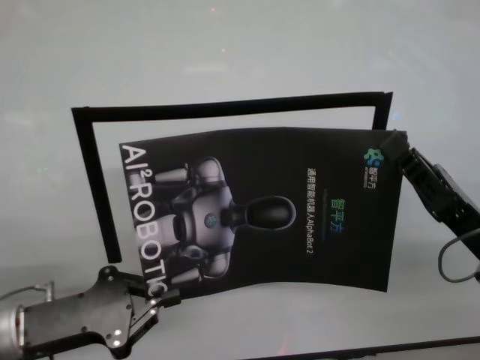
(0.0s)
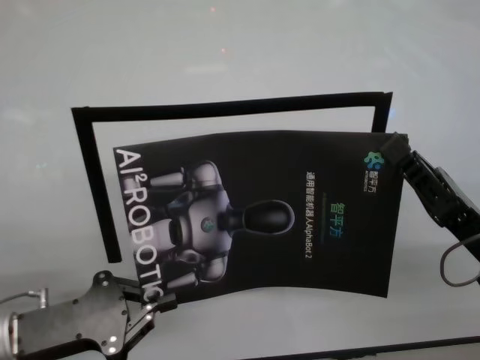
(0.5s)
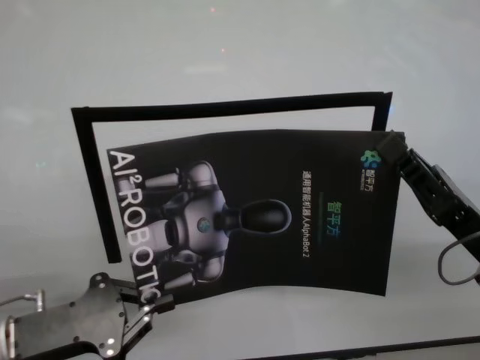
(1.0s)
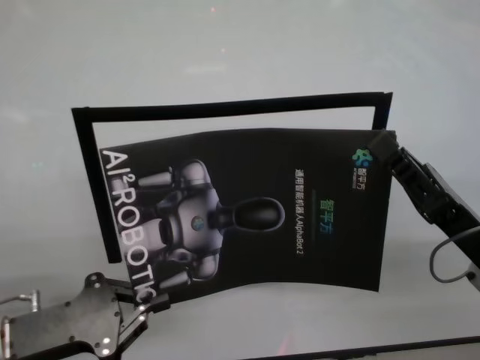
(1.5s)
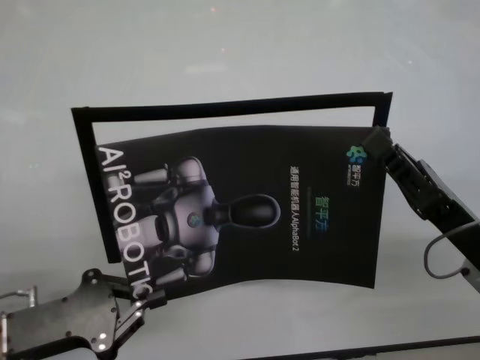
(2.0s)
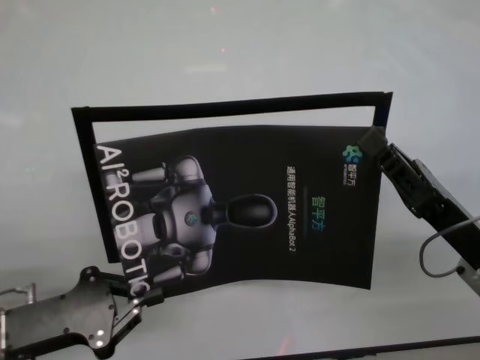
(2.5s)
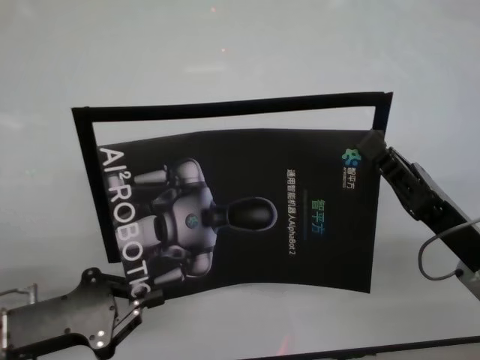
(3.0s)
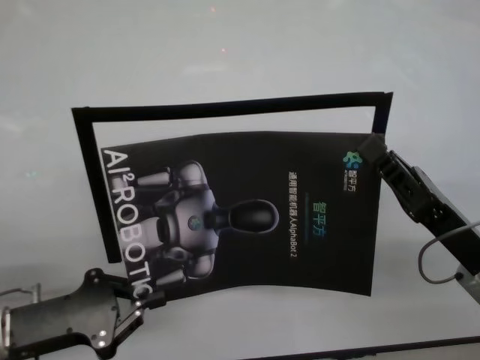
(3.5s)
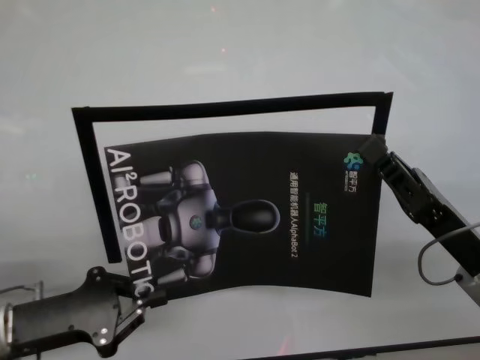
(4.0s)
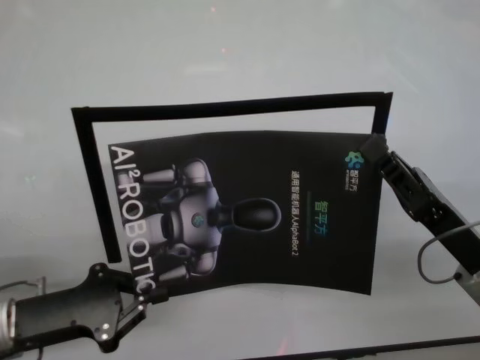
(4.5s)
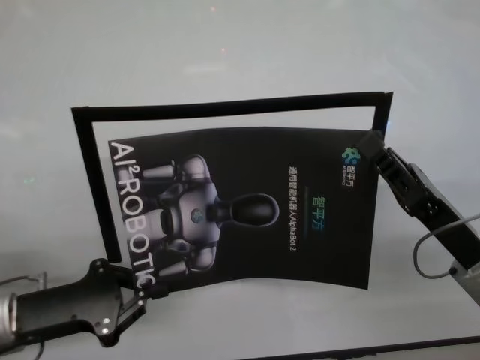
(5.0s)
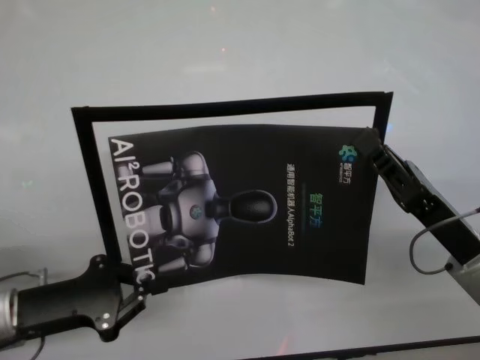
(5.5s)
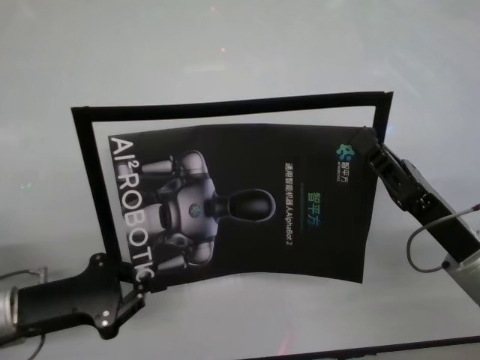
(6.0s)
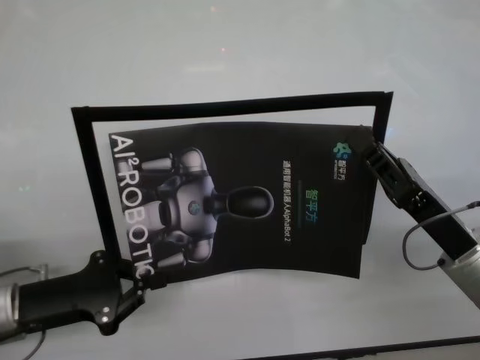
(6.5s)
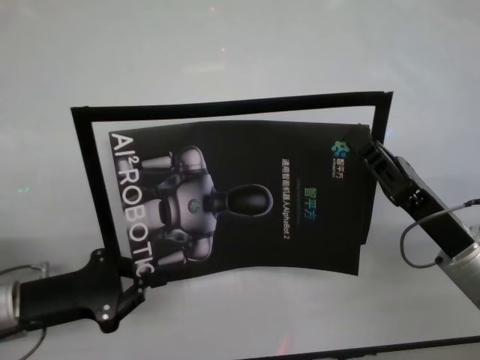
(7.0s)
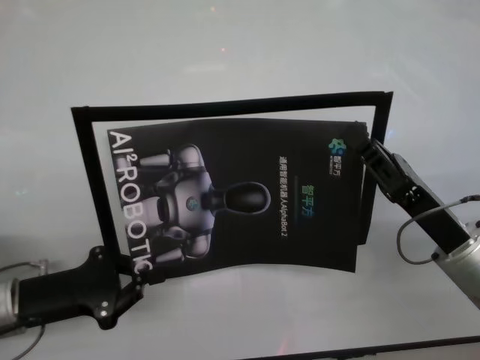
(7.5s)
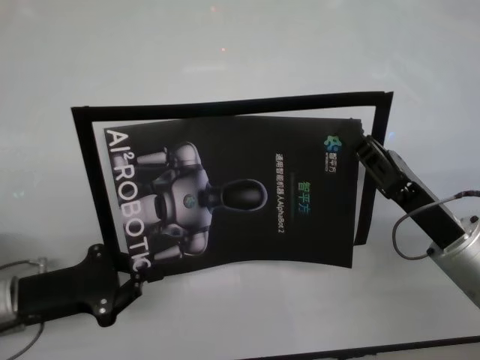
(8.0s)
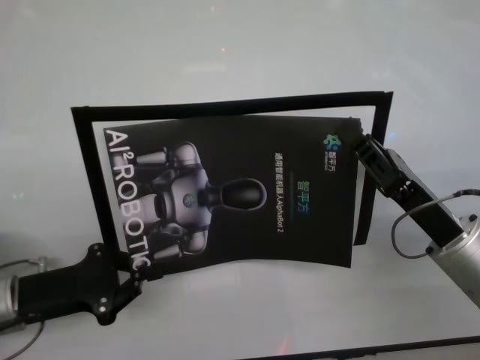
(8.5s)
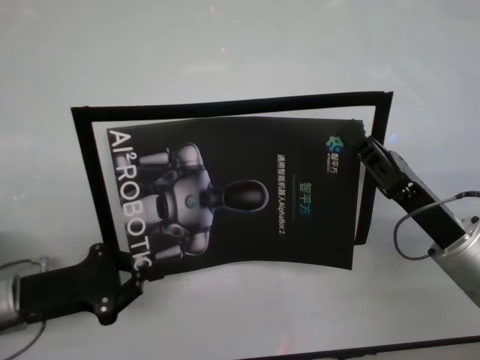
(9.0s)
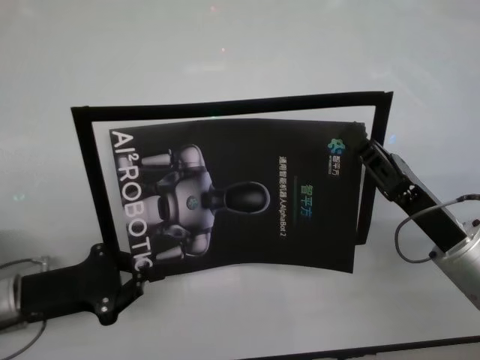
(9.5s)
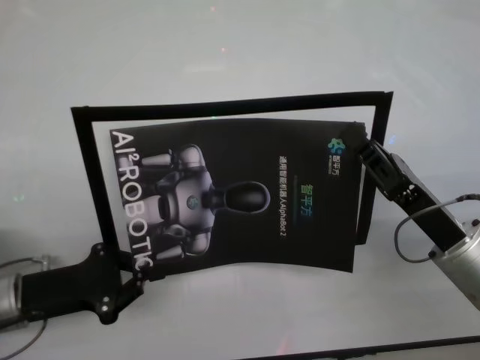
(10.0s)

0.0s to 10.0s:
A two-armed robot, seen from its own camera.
Task of the whole recording: stick the poster on the table by hand.
Step, 0.0s to 9.5s: Stick the advertisement in the top-right corner area with both grippers.
